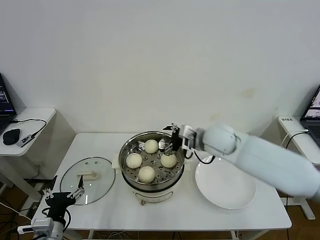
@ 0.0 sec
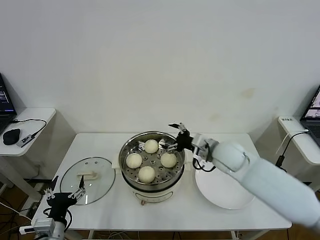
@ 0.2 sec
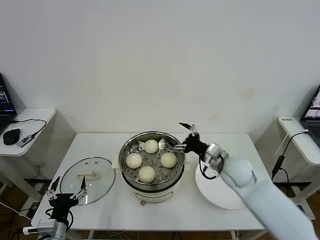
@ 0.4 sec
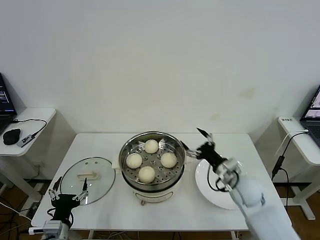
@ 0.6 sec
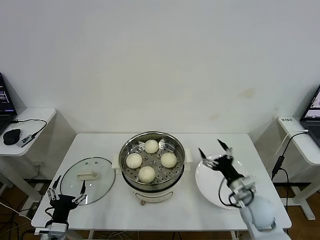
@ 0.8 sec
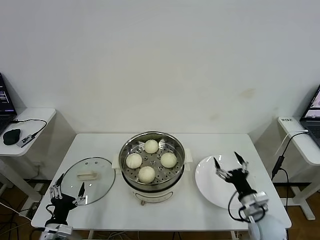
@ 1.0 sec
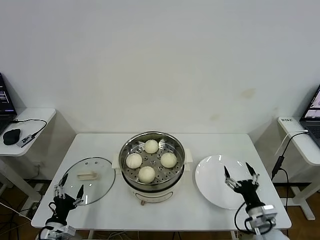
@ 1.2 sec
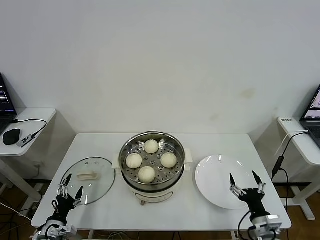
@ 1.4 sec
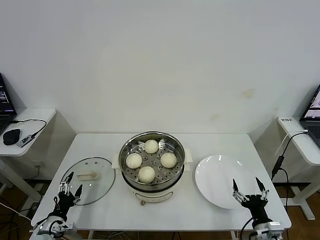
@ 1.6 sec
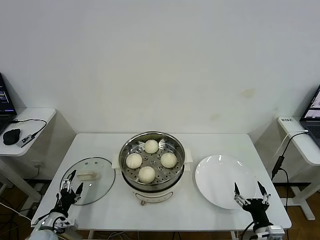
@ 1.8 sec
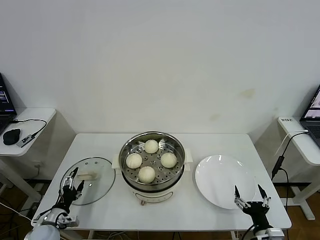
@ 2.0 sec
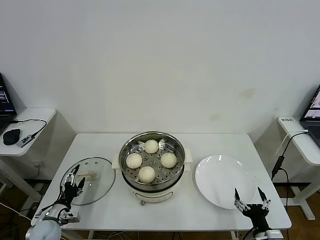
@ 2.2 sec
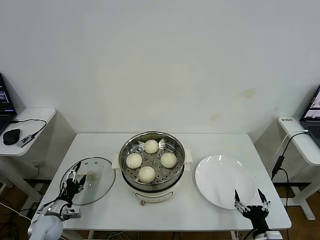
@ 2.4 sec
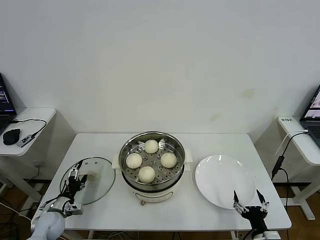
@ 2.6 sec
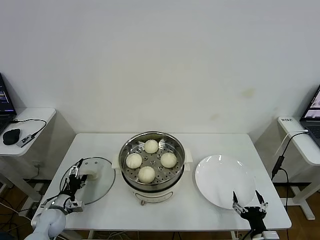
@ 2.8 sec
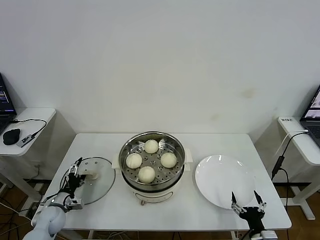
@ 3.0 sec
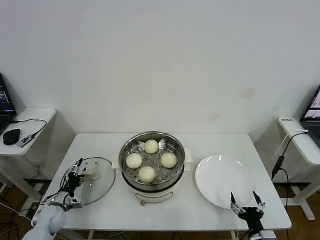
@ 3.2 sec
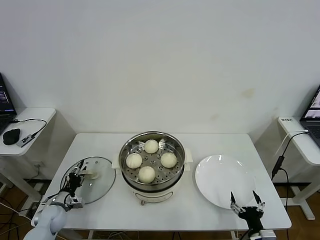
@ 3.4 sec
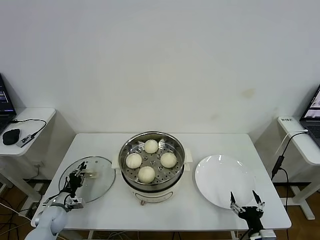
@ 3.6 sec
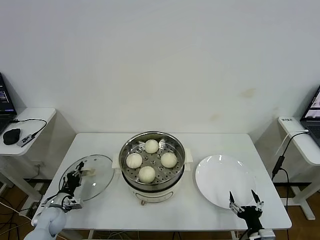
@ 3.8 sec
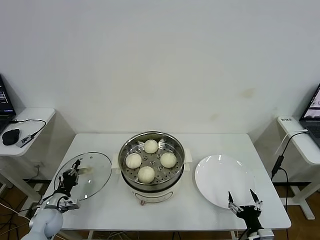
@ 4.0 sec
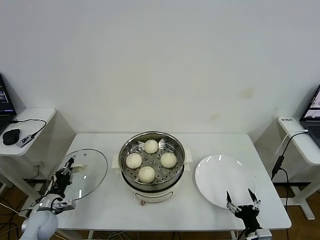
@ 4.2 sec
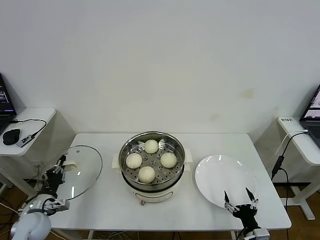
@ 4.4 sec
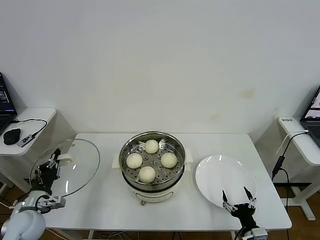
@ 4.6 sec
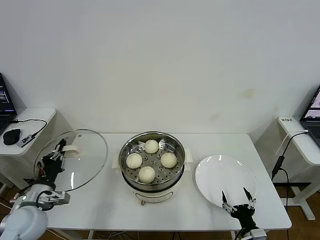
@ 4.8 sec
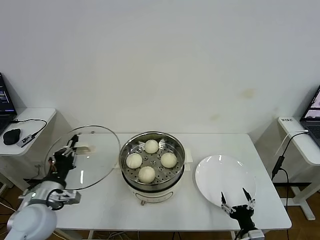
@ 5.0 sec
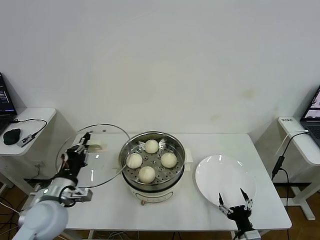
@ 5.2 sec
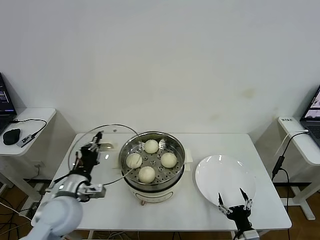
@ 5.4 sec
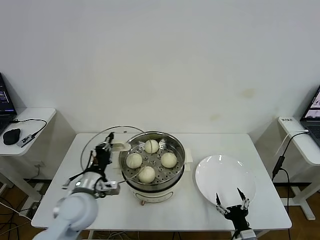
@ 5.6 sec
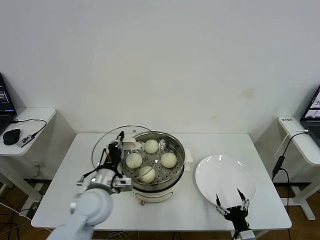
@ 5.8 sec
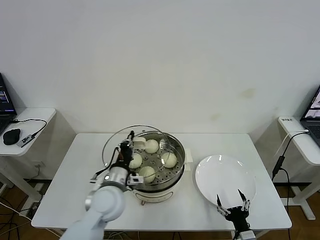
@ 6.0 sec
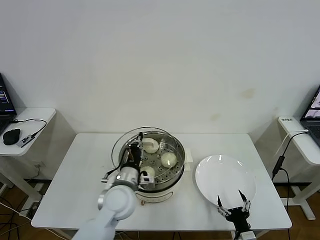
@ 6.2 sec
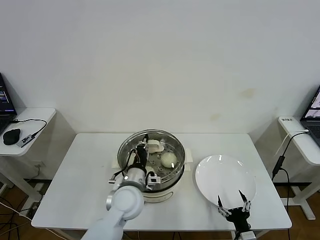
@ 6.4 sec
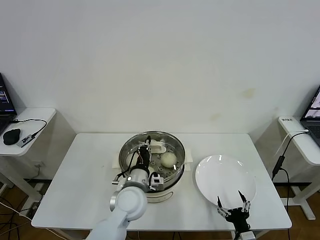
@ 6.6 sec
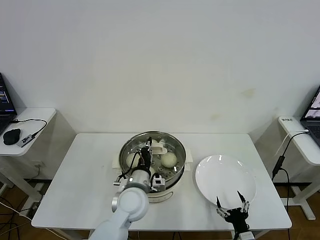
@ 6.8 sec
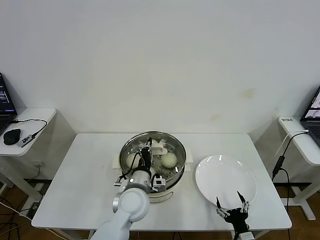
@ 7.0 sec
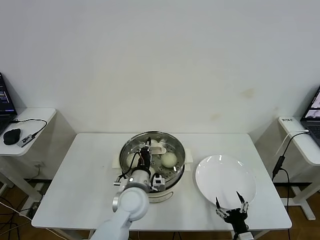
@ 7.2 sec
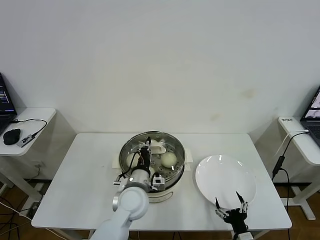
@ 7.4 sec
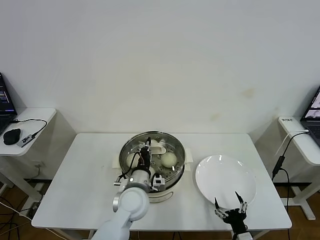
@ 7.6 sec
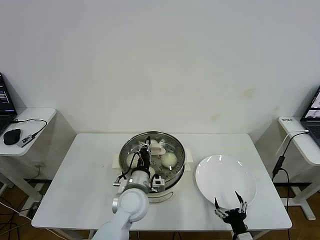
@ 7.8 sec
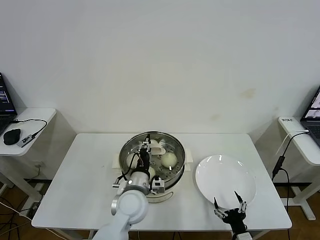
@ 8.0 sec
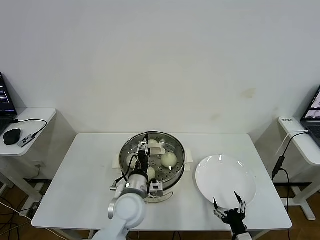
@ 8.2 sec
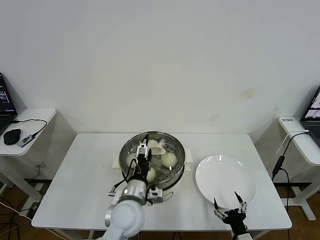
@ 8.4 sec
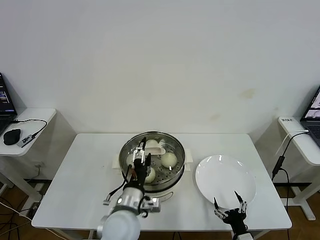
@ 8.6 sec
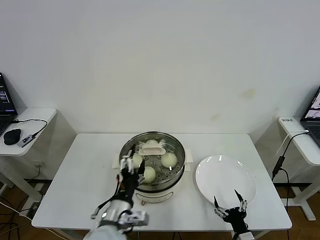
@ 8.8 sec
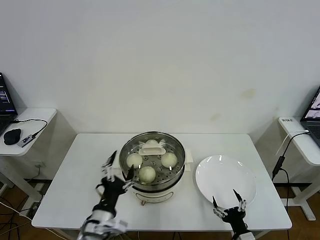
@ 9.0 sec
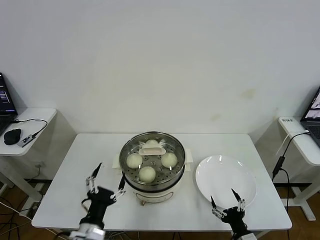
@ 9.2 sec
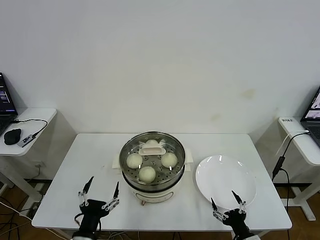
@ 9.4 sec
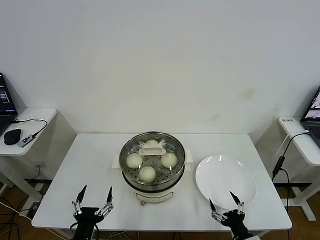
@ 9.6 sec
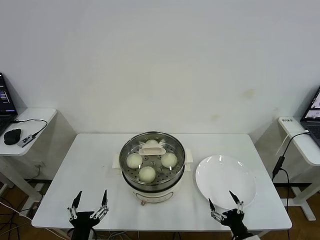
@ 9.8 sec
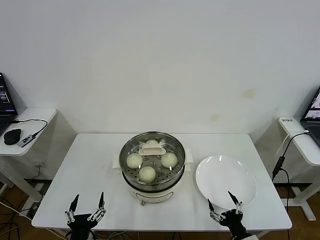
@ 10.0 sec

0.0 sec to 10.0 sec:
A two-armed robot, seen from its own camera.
Task of the whole recording: take steamed baozi put them in steamer then cover it.
Step, 0.0 sec to 3.8 sec: Grasp the pot lid with left gripper.
Step, 4.2 sec to 8.2 sec: Place the pot lid on the steamer with left gripper.
0.0 sec to 1.4 sec: The right gripper moves backward, downward and to the right, roughly 35 cm; the left gripper moves downward and to the left, about 10 cm.
1.4 sec to 2.8 sec: The left gripper heads forward, covering about 10 cm; the right gripper moves approximately 5 cm.
2.8 sec to 4.2 sec: The left gripper closes.
4.2 sec to 5.8 sec: The left gripper heads to the right and upward, covering roughly 30 cm.
5.8 sec to 7.2 sec: The left gripper goes some 10 cm to the right.
7.2 sec to 8.6 sec: The left gripper goes about 5 cm backward, and opens its fingers.
8.6 sec to 10.0 sec: The left gripper is displaced backward, to the left and downward by approximately 20 cm.
